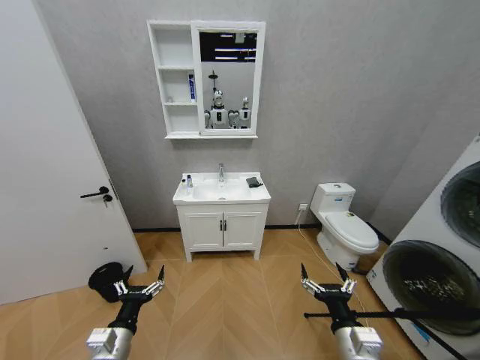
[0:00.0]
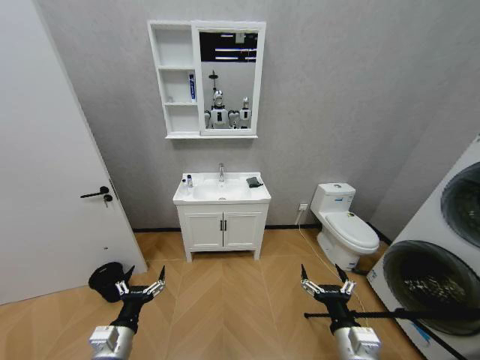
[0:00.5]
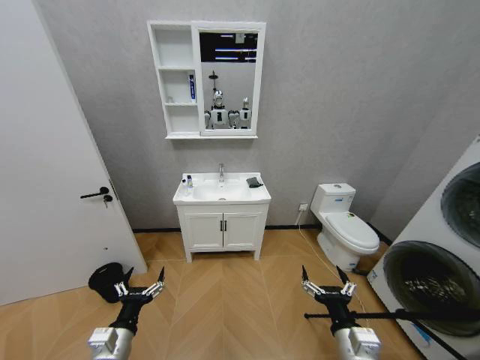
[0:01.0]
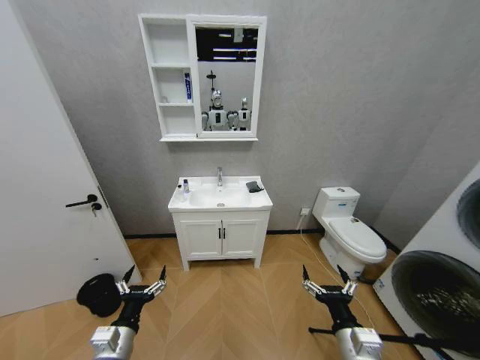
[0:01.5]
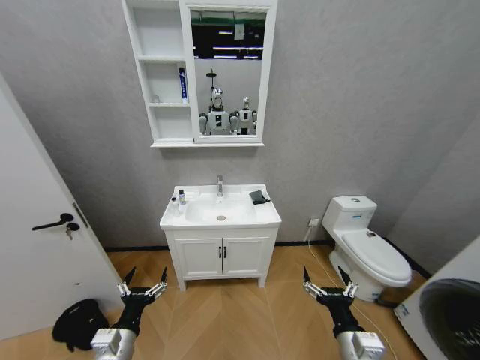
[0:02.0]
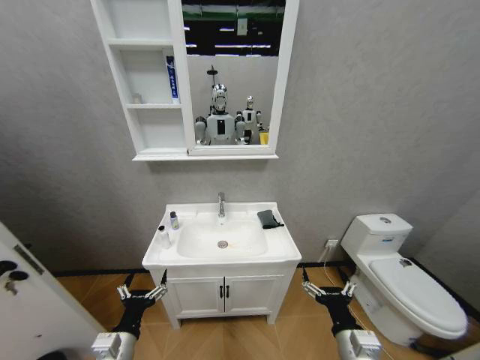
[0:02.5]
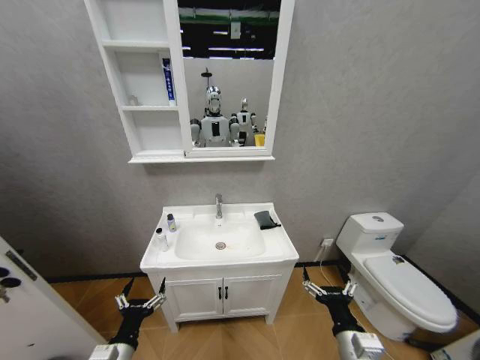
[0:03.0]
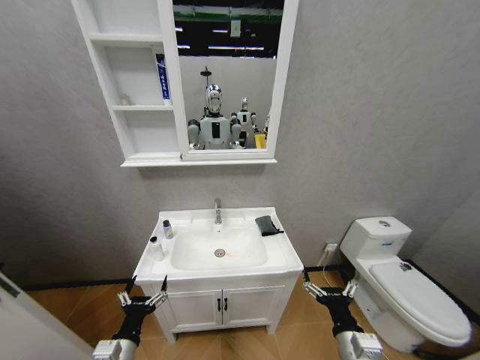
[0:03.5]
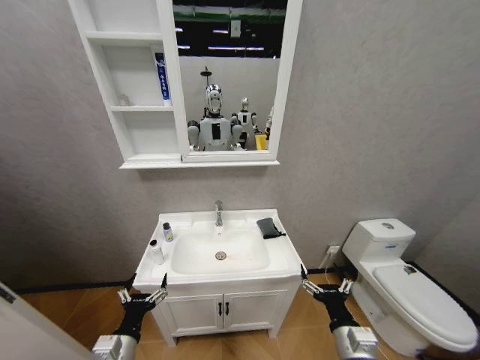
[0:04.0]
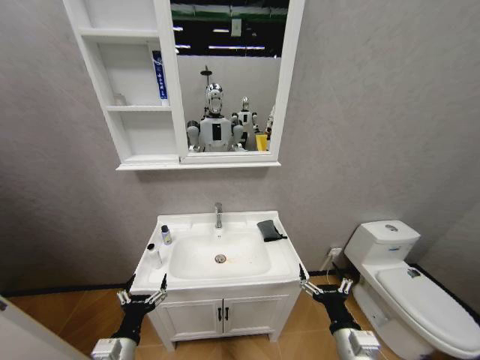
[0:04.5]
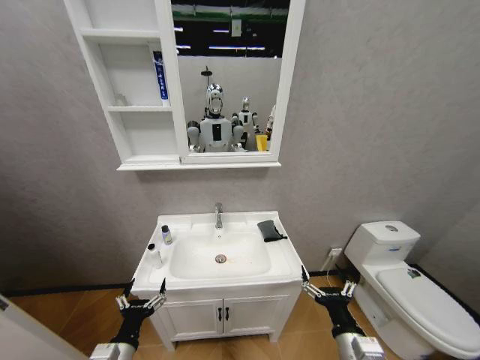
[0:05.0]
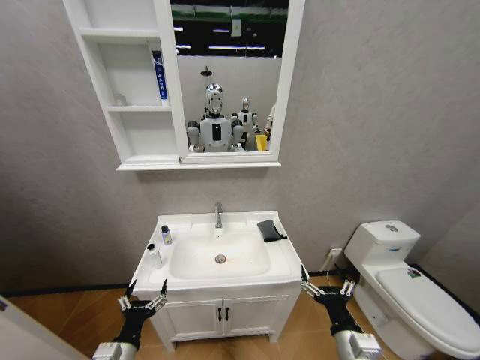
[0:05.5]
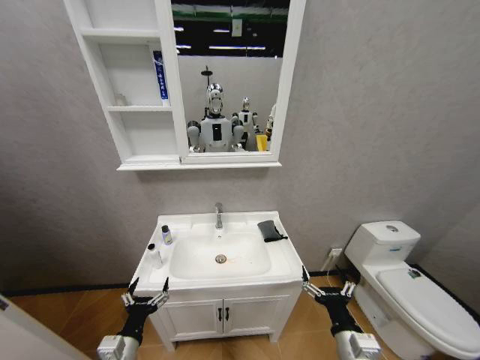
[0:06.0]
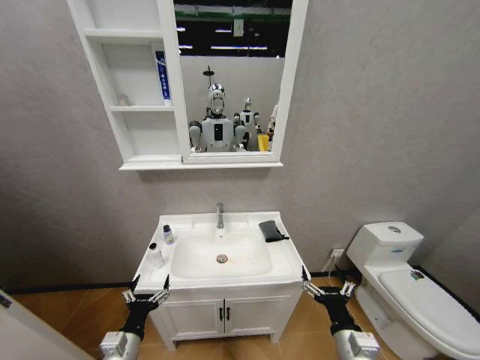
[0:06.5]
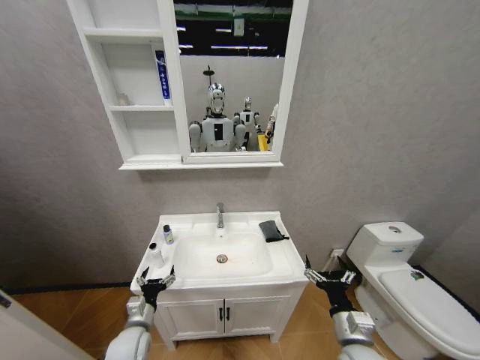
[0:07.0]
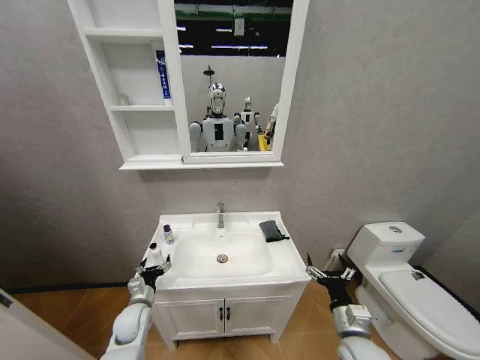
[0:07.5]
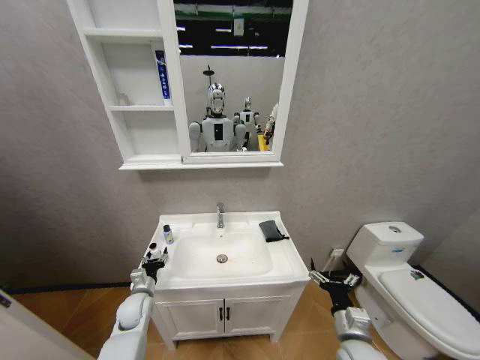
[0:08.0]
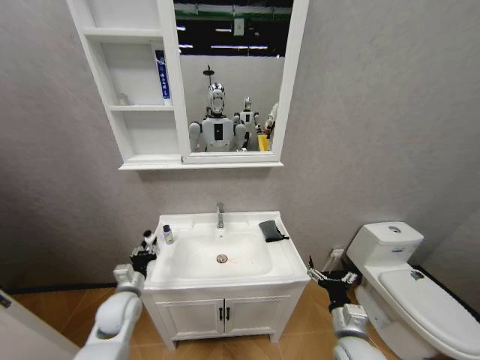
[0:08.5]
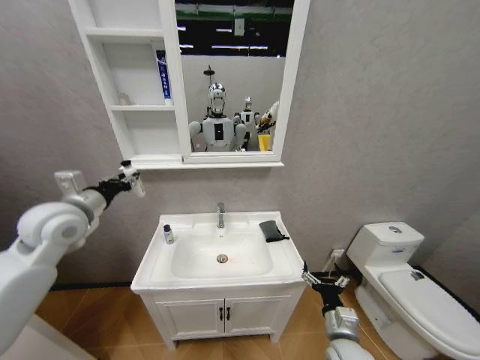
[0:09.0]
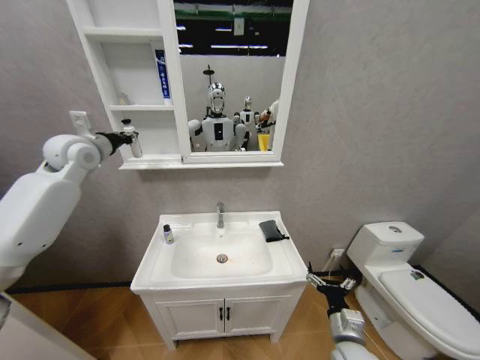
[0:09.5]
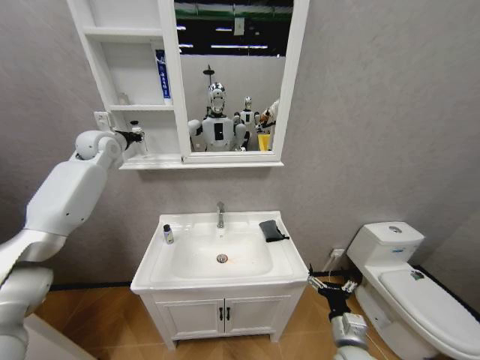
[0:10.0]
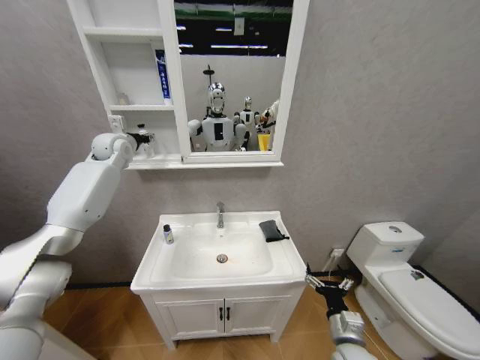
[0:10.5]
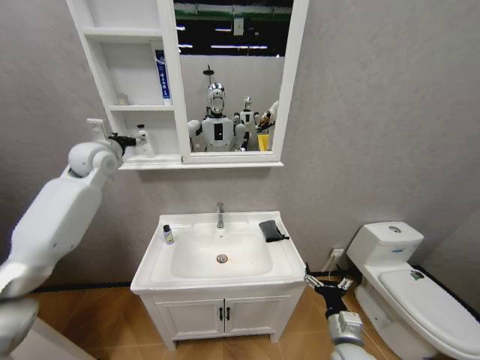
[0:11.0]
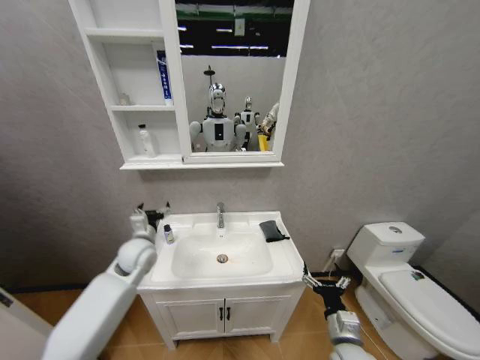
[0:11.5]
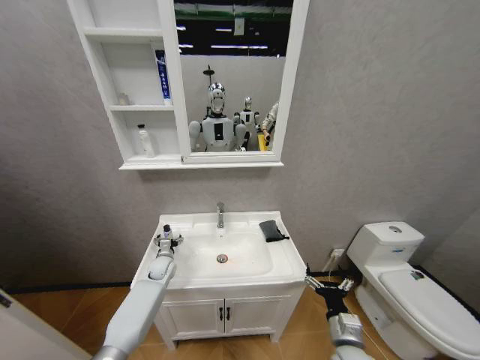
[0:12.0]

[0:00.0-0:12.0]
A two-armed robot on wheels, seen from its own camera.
Task of the whole recording: Move facial cleanser and shampoo from washbasin to cabinet, then wipe washbasin with towel.
0:04.0 to 0:06.0: The grippers make only small movements.
0:06.0 to 0:08.0: The left gripper is displaced forward by approximately 20 cm, and closes. Meanwhile the right gripper goes some 5 cm forward.
0:08.0 to 0:10.0: The left gripper travels upward and forward by some 50 cm, and closes up.
0:10.0 to 0:12.0: The left gripper goes approximately 40 cm downward, and opens.

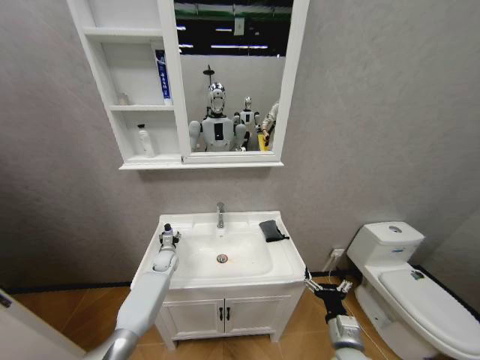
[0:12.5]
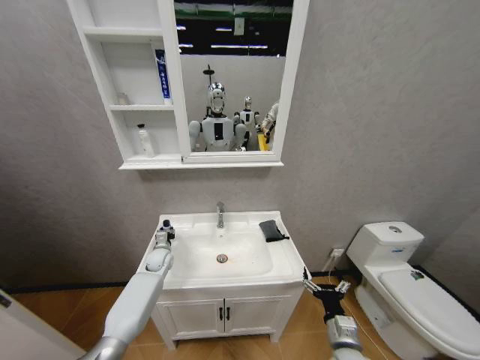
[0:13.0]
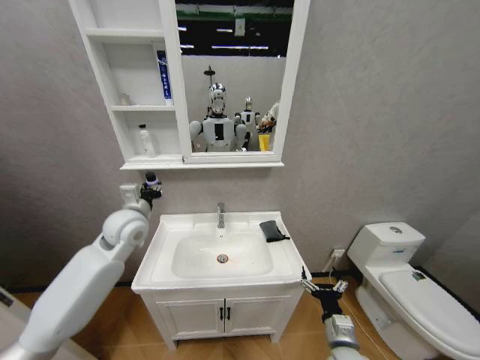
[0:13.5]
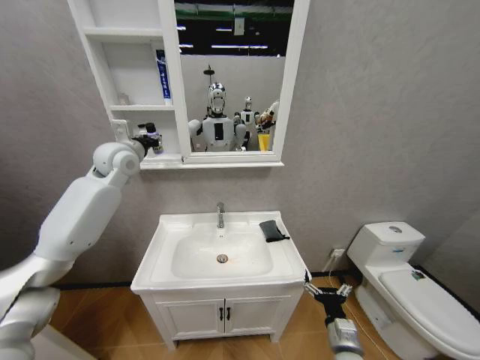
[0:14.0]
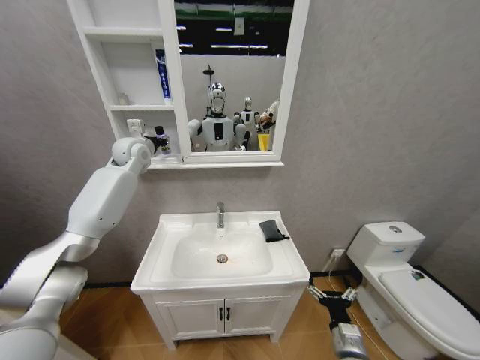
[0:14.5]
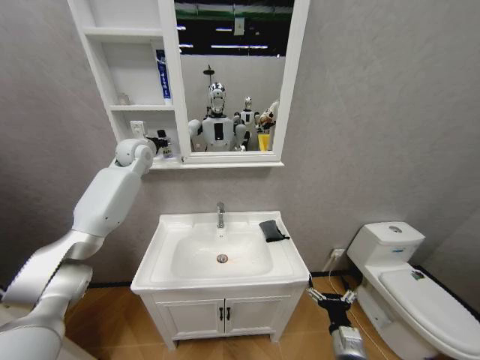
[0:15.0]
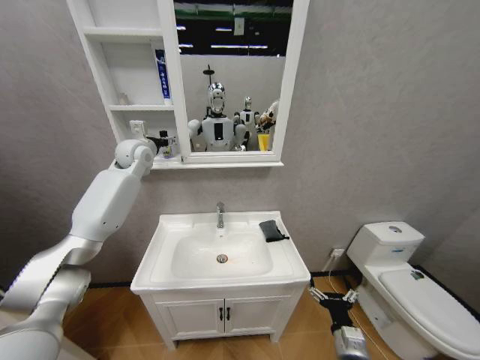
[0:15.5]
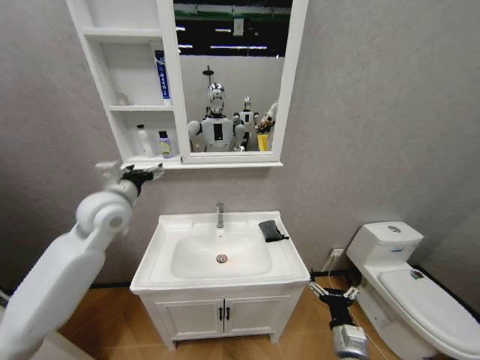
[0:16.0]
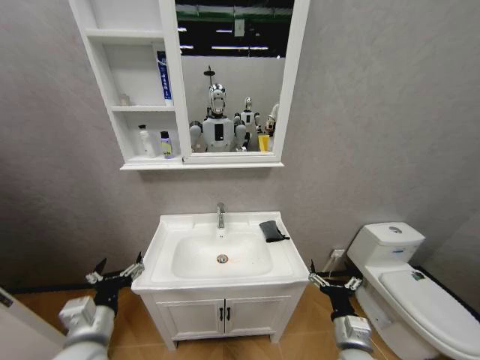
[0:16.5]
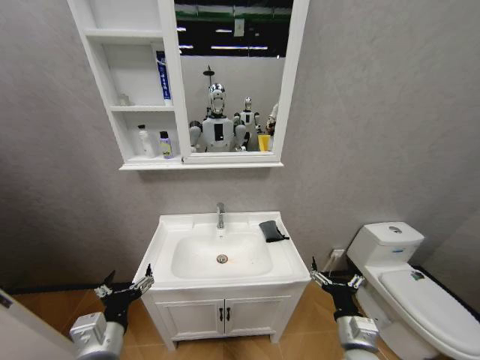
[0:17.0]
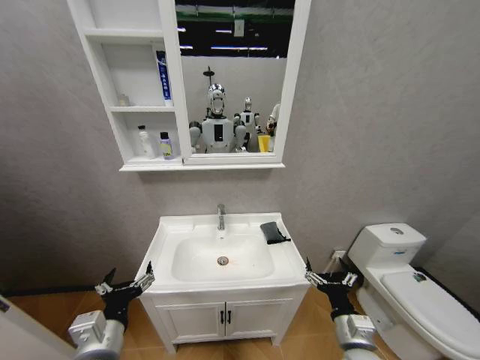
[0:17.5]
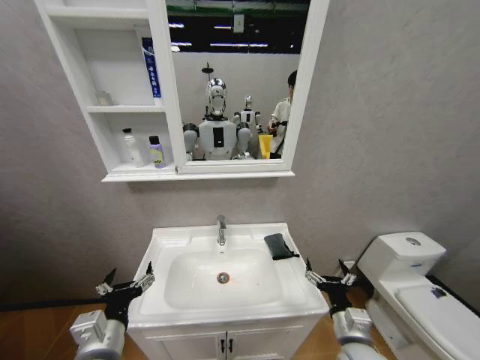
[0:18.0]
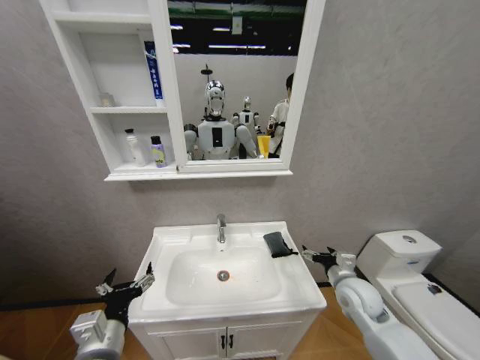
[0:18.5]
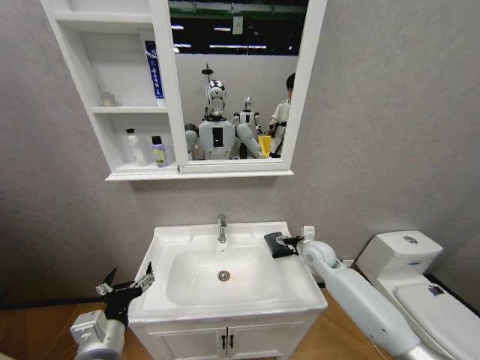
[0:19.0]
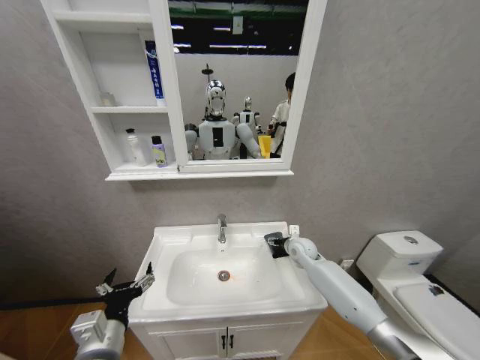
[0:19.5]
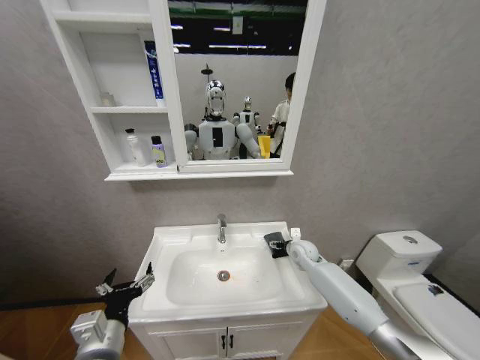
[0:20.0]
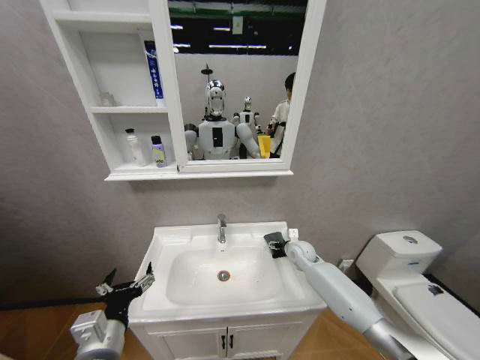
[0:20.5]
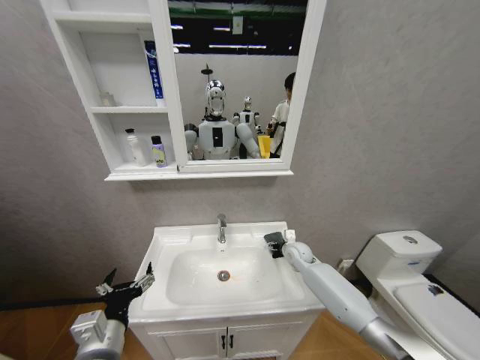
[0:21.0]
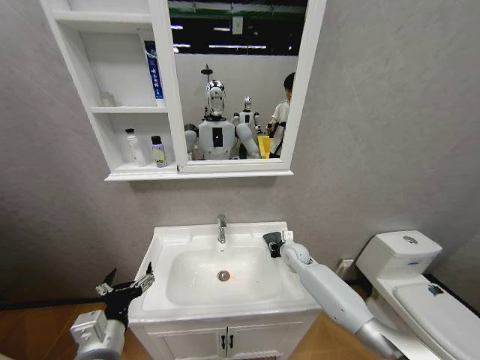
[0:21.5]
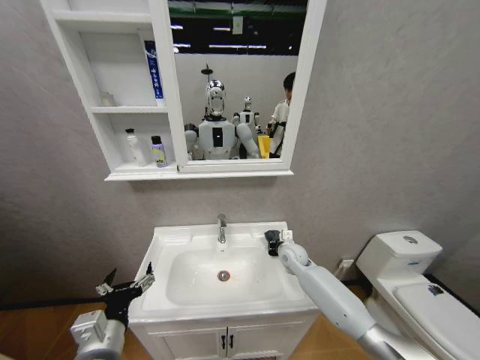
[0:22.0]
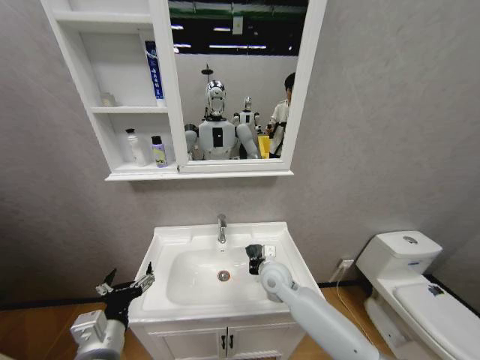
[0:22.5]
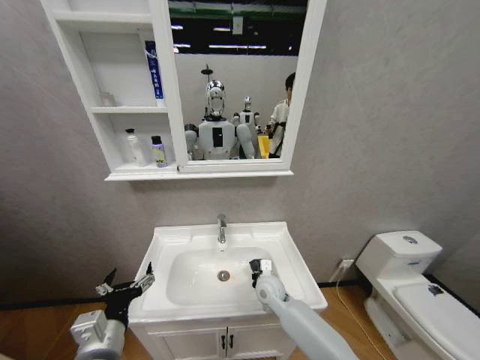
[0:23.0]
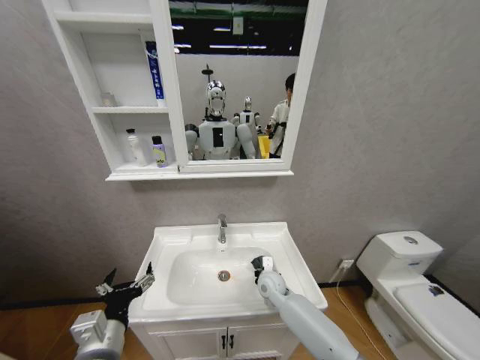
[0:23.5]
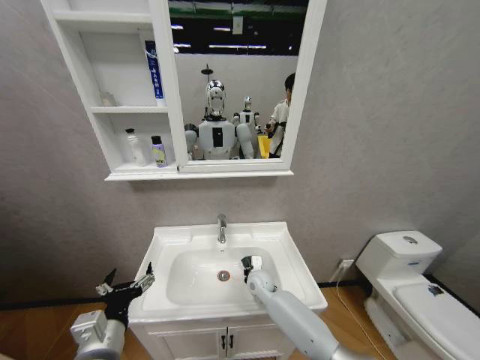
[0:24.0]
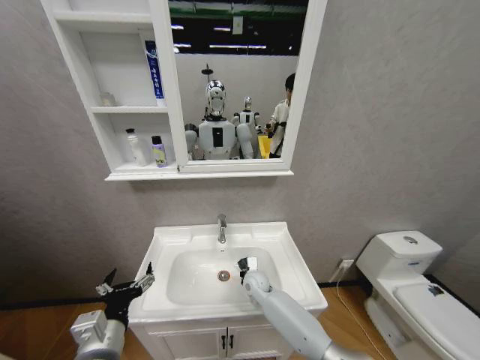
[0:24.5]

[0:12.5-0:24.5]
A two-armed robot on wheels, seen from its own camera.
Task of the whole recording: Move facial cleanser and shampoo from washbasin to cabinet, then wipe washbasin with towel.
0:12.5 to 0:14.5: The left gripper is displaced upward by about 40 cm, and closes its fingers.
0:14.5 to 0:16.5: The left gripper shifts roughly 50 cm backward and downward, and opens.
0:16.5 to 0:18.5: The right gripper travels forward by roughly 15 cm.
0:18.5 to 0:20.5: The right gripper is displaced forward by approximately 15 cm.
0:20.5 to 0:22.5: The right gripper travels to the left and backward by some 20 cm, and closes its fingers.
0:22.5 to 0:24.5: The right gripper goes approximately 10 cm downward.

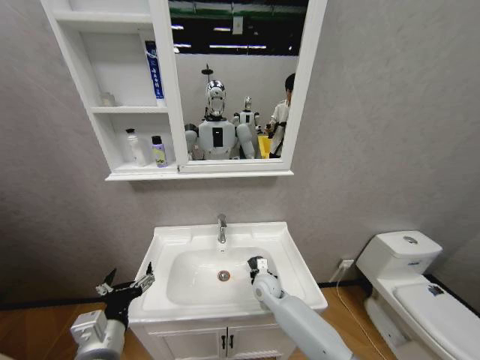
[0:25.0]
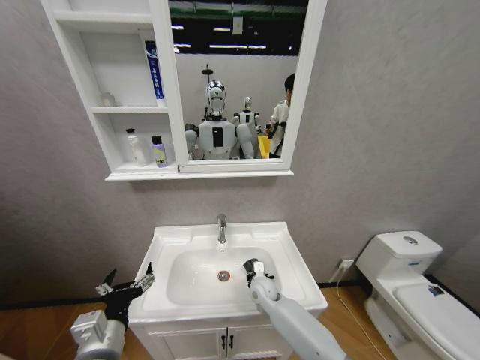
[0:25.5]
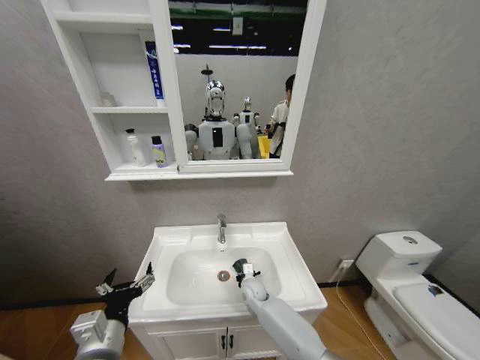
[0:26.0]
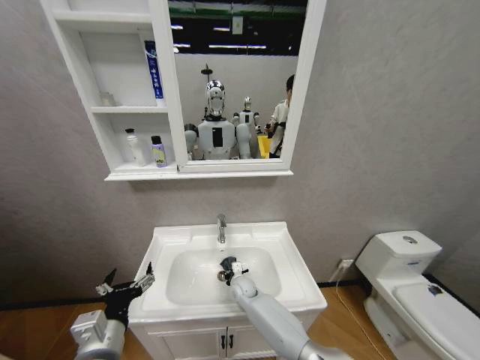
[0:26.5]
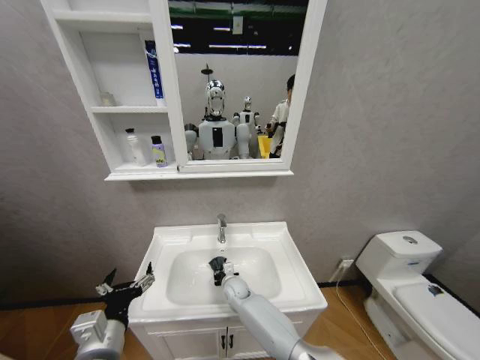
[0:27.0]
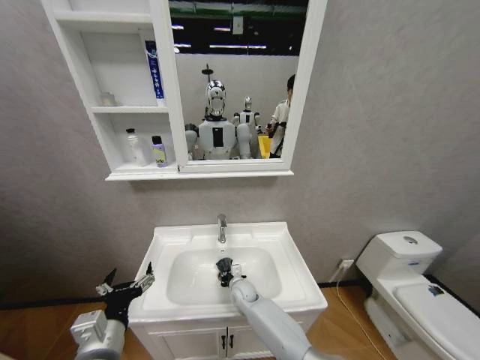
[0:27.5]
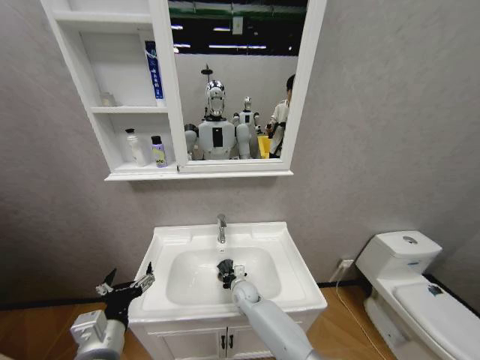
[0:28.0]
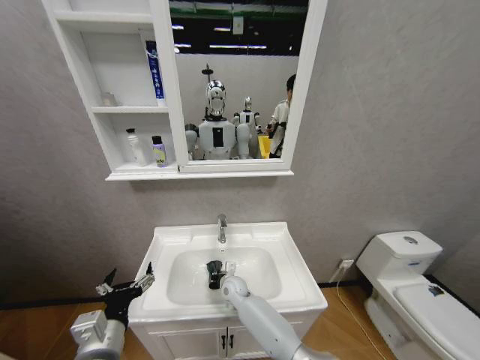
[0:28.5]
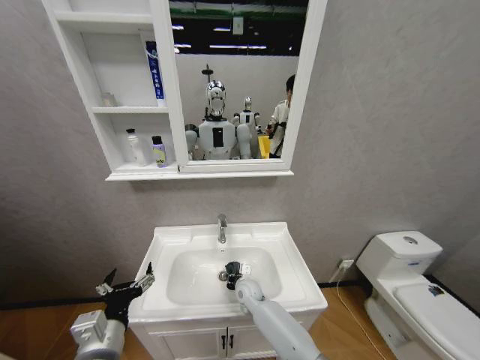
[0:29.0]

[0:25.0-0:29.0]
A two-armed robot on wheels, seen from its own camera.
Task of the whole recording: Move facial cleanser and shampoo from washbasin to cabinet, then wipe washbasin with towel.
0:25.0 to 0:27.0: The right gripper shifts some 15 cm to the left and downward.
0:27.0 to 0:29.0: The right gripper moves some 5 cm.
